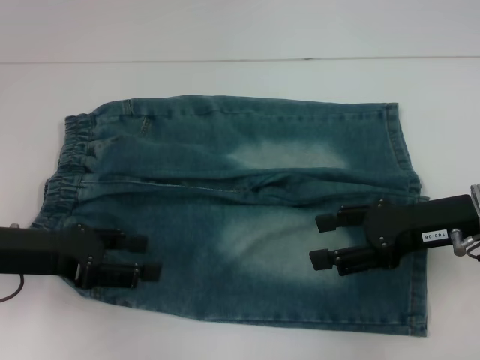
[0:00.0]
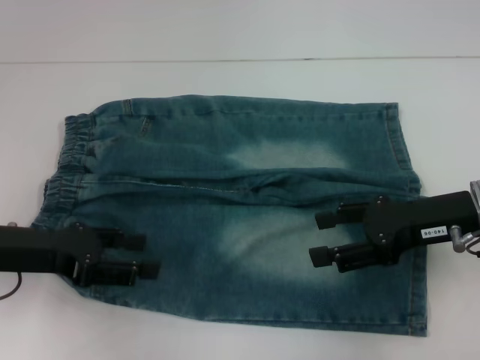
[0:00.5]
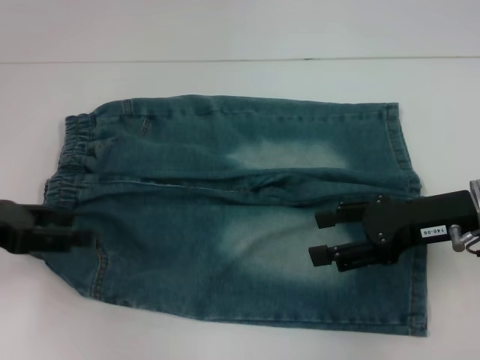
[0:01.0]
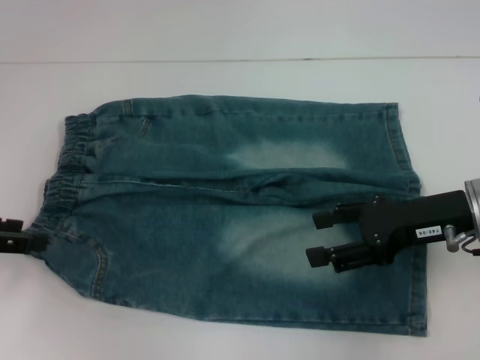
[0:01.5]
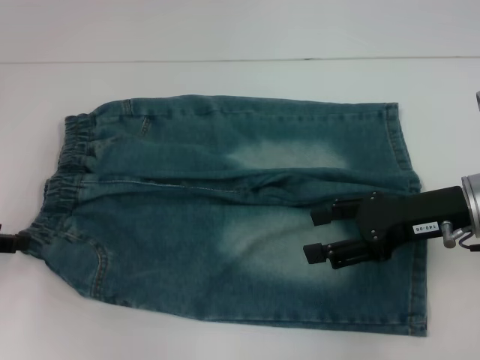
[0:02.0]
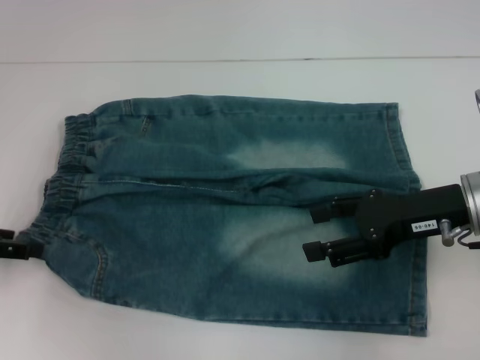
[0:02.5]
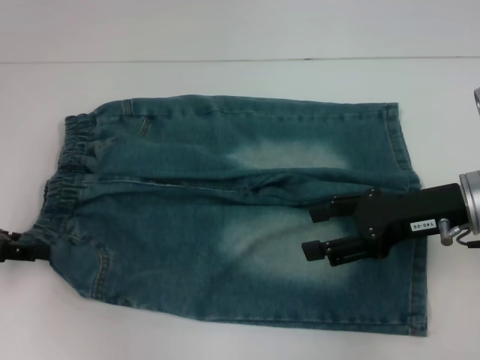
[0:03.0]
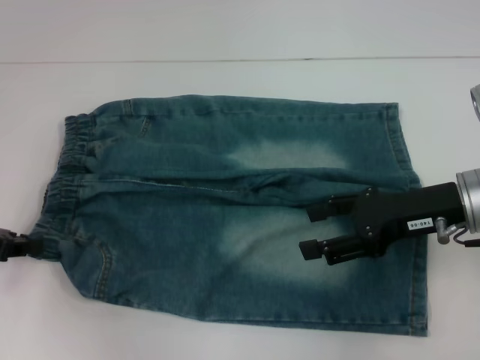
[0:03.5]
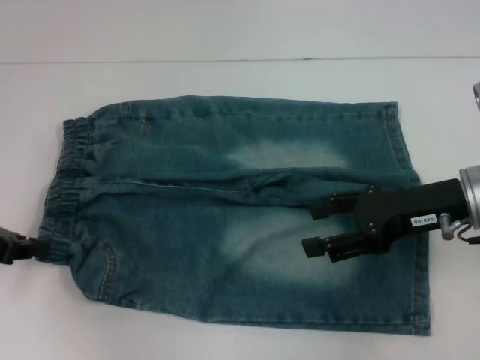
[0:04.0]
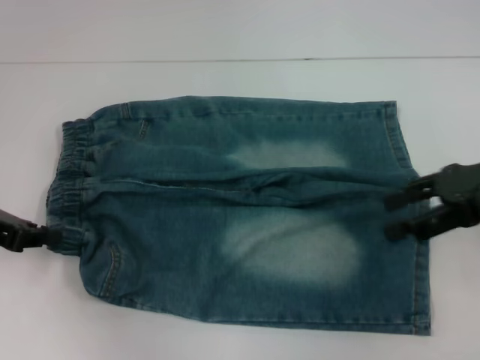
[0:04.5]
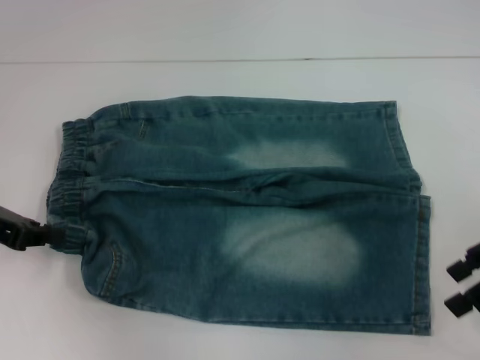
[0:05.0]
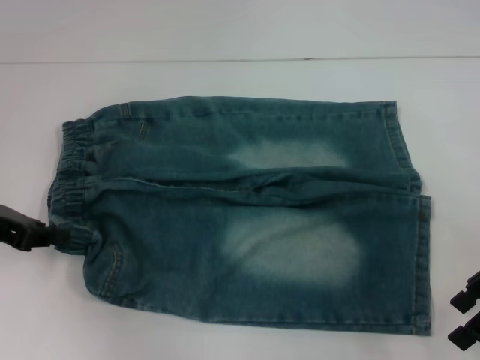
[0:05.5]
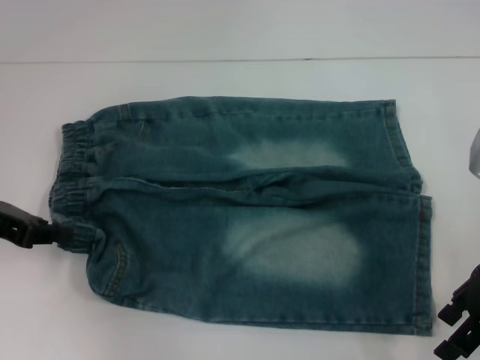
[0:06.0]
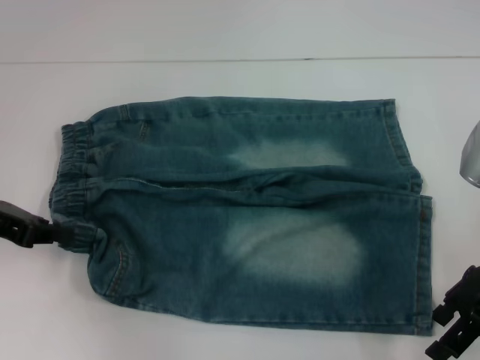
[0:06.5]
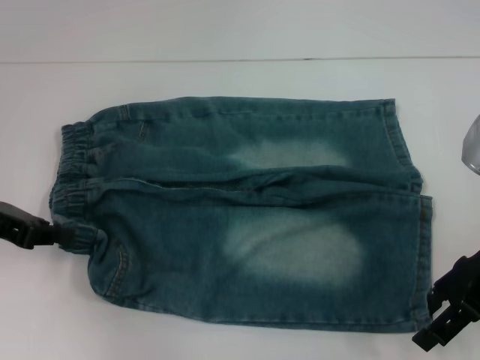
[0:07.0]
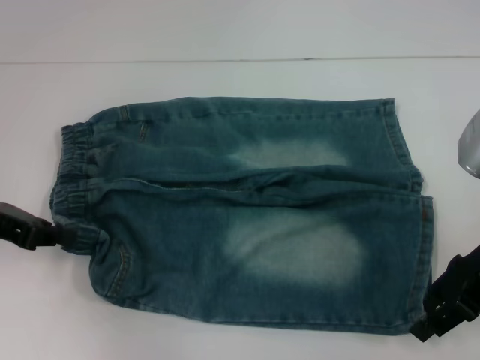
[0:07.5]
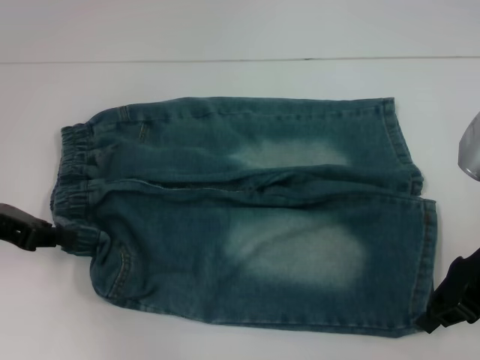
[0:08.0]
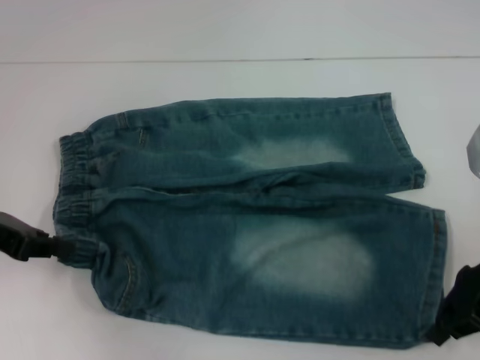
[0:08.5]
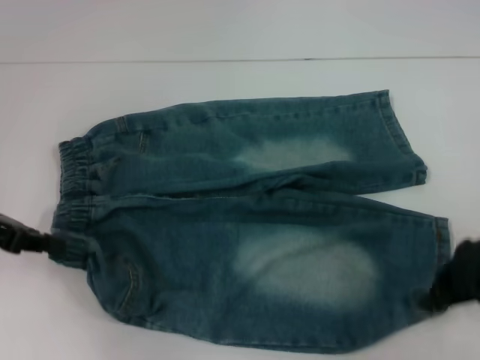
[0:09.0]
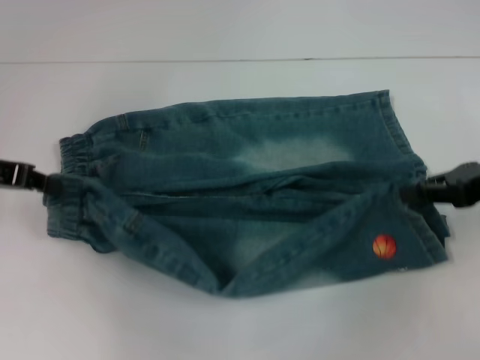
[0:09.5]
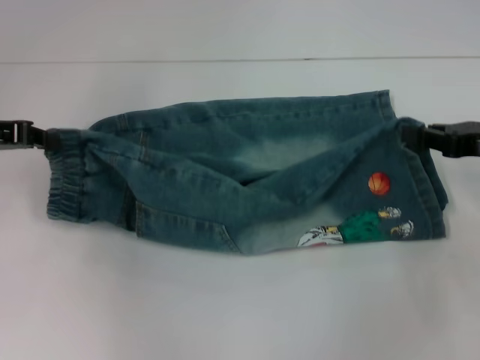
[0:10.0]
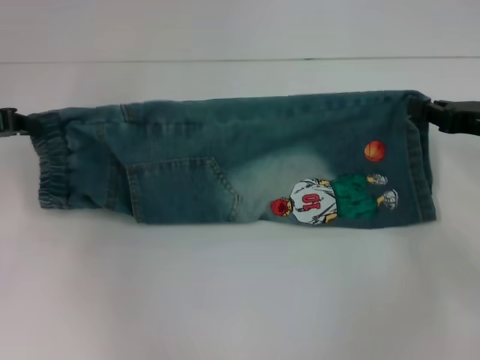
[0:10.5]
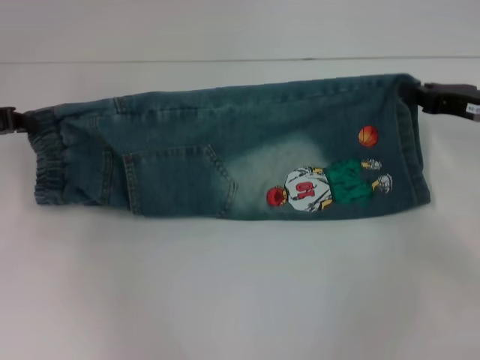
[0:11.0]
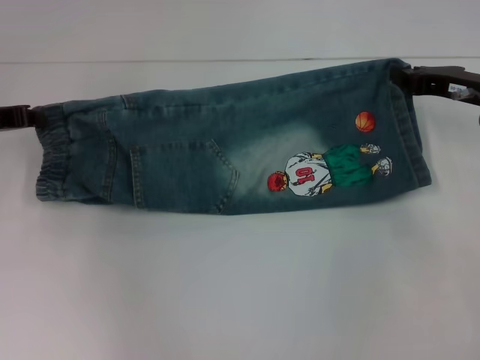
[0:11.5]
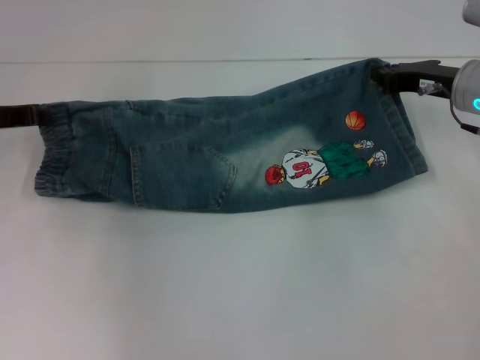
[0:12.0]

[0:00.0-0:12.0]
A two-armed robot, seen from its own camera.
Step, 0:00.0 to 0:03.0: Hold the lower left waistband with your left hand.
Step, 0:03.5 to 0:07.5: Grab the lower right pant leg with your right hand.
0:00.0 to 0:02.0: The left gripper heads to the left, covering roughly 10 cm.
0:02.0 to 0:04.0: The left gripper closes up.
0:06.0 to 0:08.0: The right gripper closes its fingers.
0:08.0 to 0:10.0: The left gripper ends up approximately 5 cm from where it was, while the right gripper is displaced to the right by approximately 5 cm.
0:10.0 to 0:12.0: The right gripper goes some 10 cm forward and to the left.

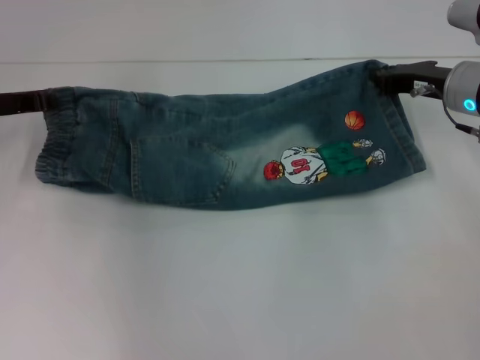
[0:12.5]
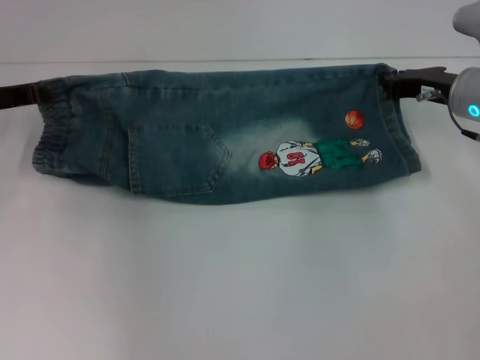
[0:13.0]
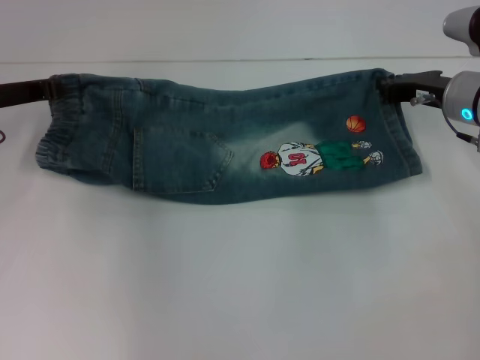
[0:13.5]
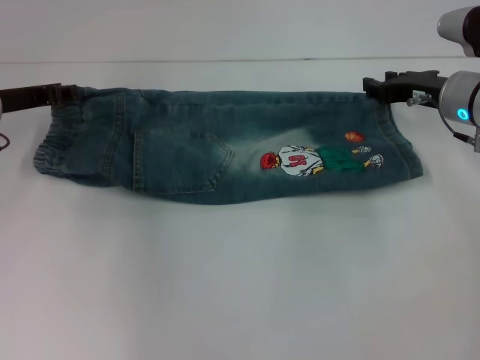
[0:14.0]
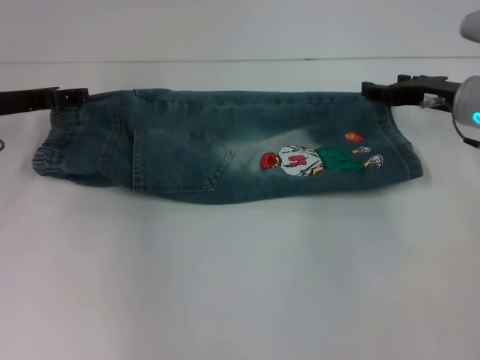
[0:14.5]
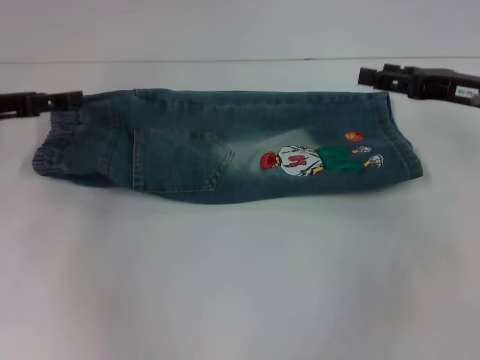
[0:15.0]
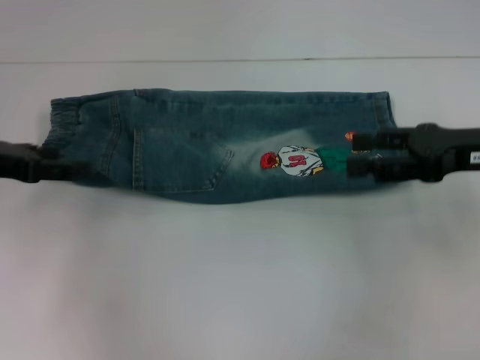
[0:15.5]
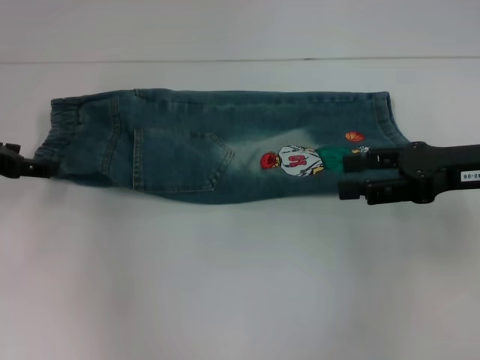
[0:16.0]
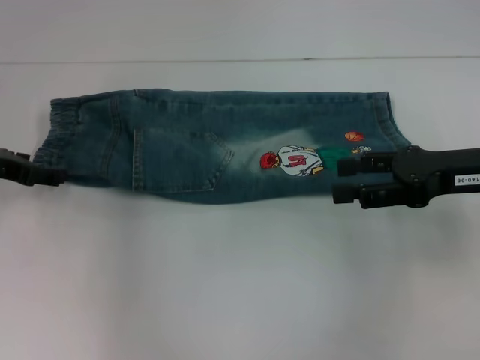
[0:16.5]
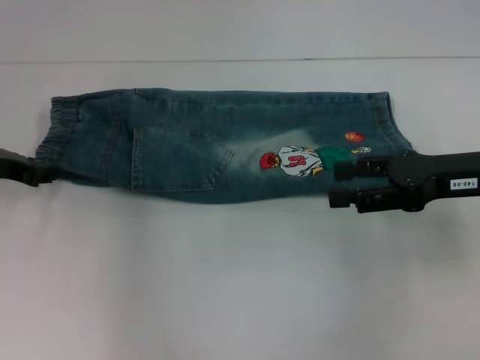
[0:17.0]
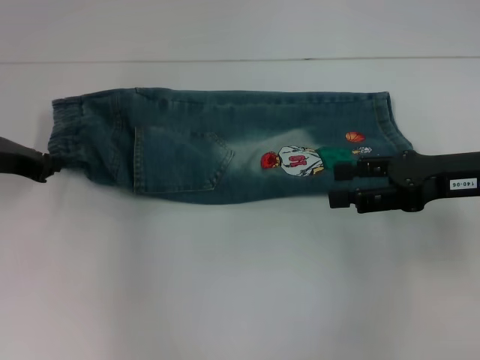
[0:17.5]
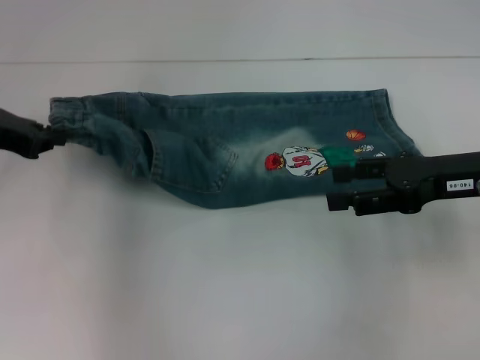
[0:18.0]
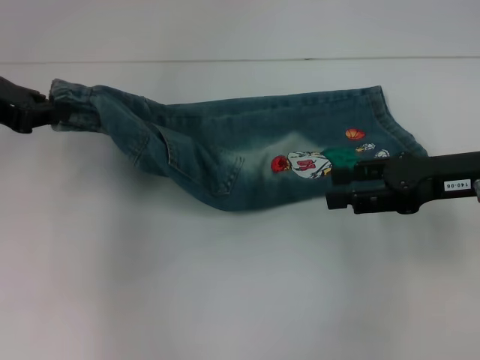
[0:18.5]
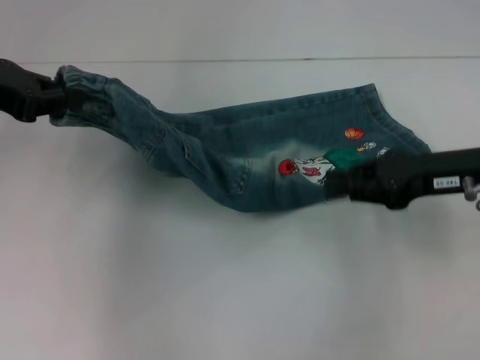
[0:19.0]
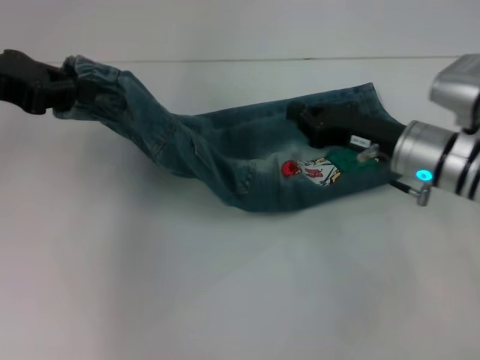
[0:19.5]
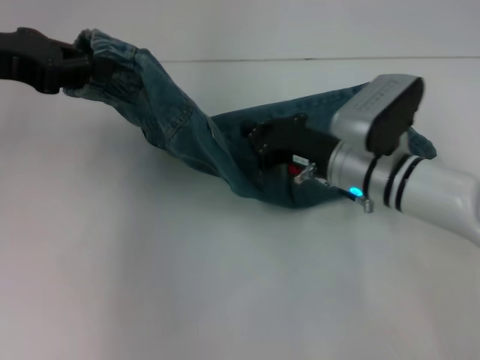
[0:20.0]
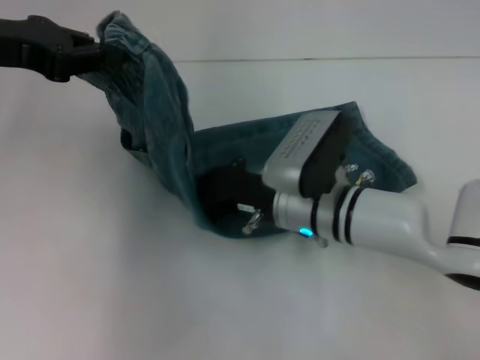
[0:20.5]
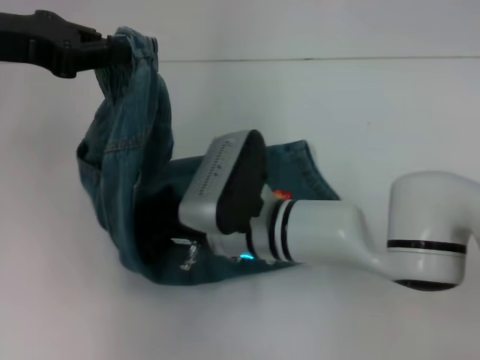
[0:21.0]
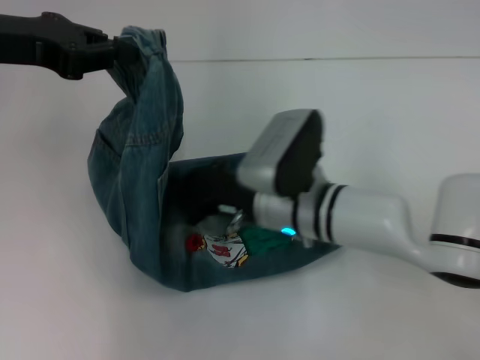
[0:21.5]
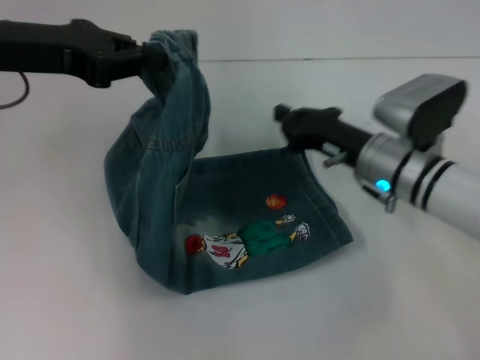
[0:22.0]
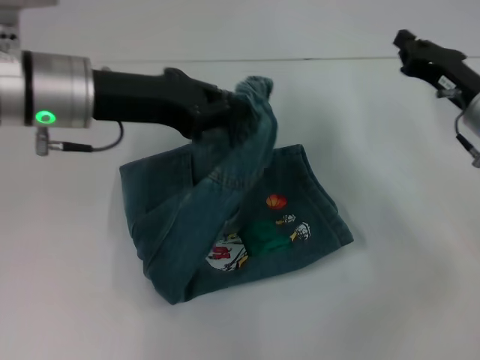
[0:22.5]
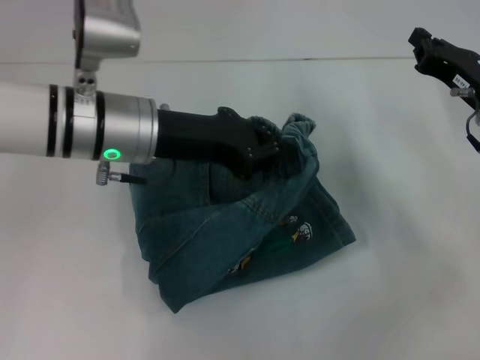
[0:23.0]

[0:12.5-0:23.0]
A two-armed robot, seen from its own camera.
Step, 0:12.5 to 0:14.5: Fold upward with your right hand.
Step, 0:15.0 to 0:17.0: Hold the waistband with your left hand.
Step, 0:17.5 to 0:21.5: Press the middle of the pants with your right hand.
0:12.5 to 0:14.5: The left gripper opens up; the right gripper opens.
0:14.5 to 0:16.5: The right gripper goes approximately 10 cm backward.
0:16.5 to 0:19.0: The left gripper shifts some 10 cm upward, and closes. The right gripper closes.
0:19.0 to 0:21.0: The right gripper travels to the left by some 25 cm, and closes its fingers.
0:21.0 to 0:23.0: The left gripper heads to the right and downward, covering roughly 15 cm. Meanwhile the right gripper heads to the right, covering roughly 25 cm.

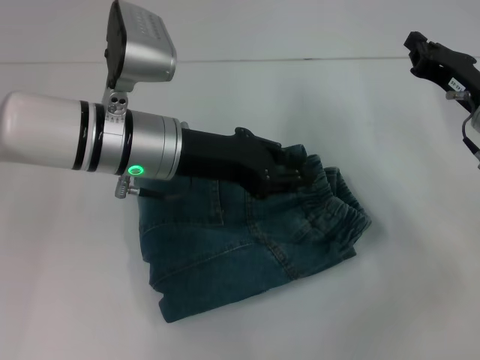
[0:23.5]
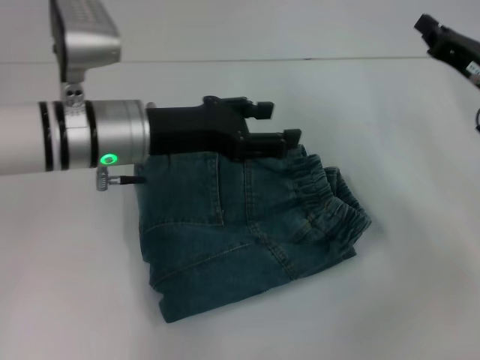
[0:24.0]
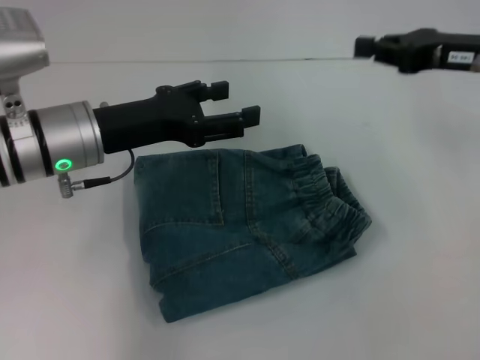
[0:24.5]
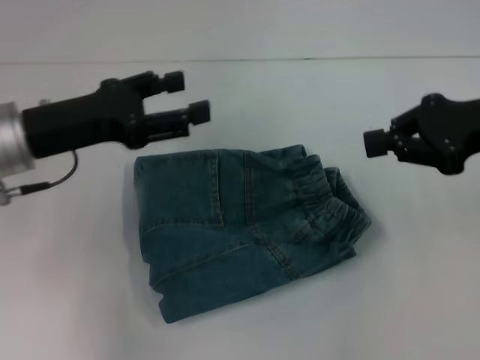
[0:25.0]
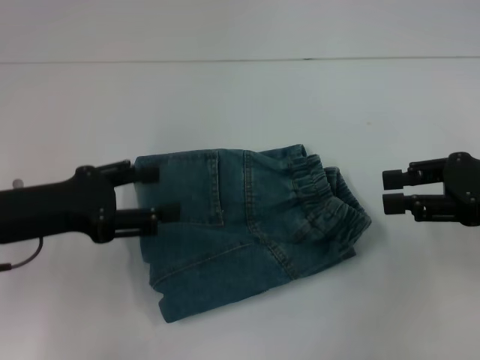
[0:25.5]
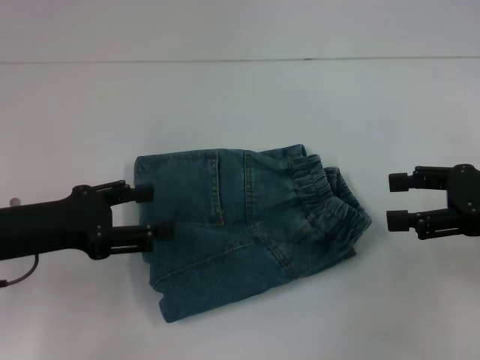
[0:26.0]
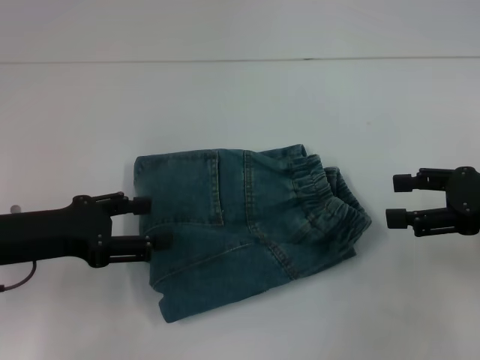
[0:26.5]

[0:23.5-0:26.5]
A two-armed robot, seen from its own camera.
0:23.5 to 0:25.0: The right gripper goes roughly 10 cm upward. The left gripper moves to the left, approximately 10 cm, and opens its fingers.
0:25.0 to 0:26.5: The left gripper shifts some 5 cm backward; the right gripper heads downward, covering roughly 5 cm, and opens its fingers.
